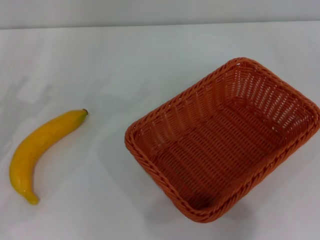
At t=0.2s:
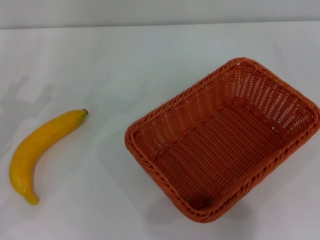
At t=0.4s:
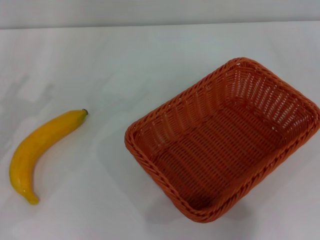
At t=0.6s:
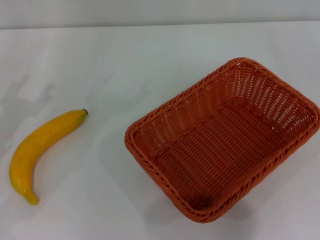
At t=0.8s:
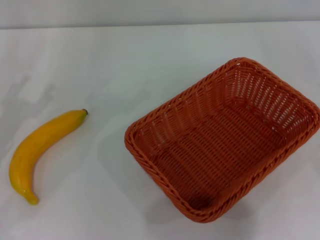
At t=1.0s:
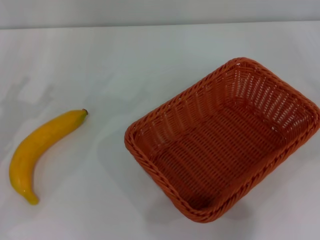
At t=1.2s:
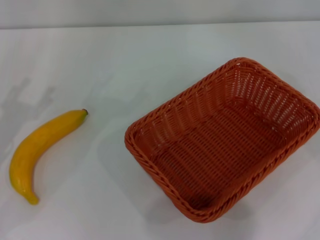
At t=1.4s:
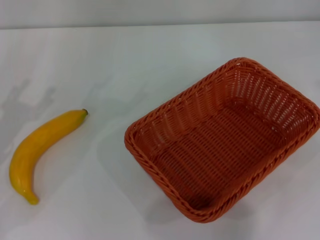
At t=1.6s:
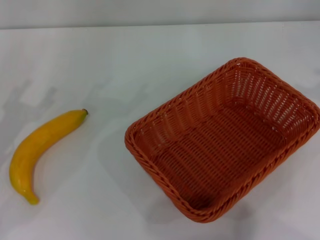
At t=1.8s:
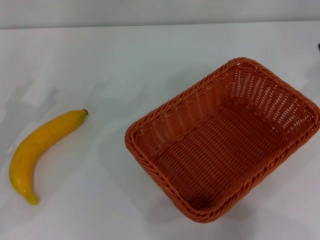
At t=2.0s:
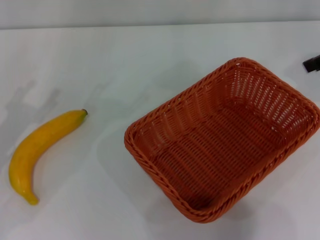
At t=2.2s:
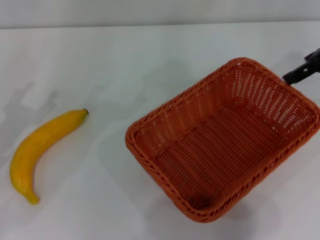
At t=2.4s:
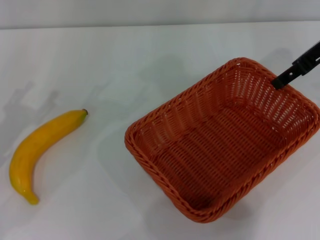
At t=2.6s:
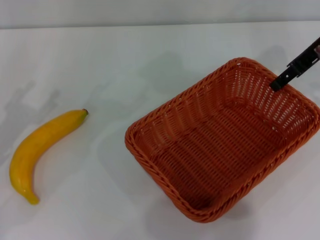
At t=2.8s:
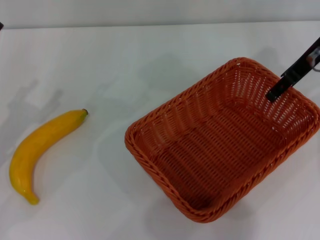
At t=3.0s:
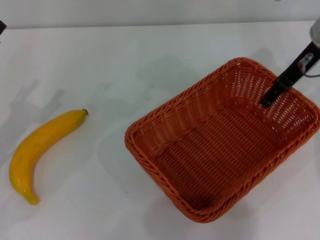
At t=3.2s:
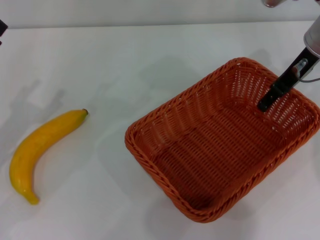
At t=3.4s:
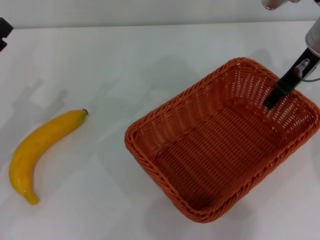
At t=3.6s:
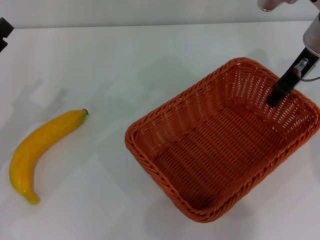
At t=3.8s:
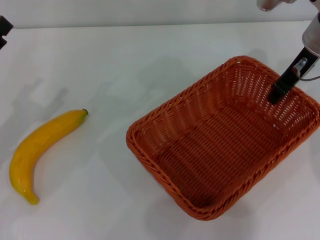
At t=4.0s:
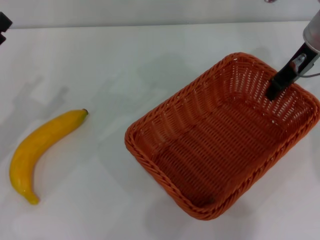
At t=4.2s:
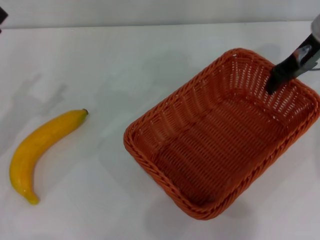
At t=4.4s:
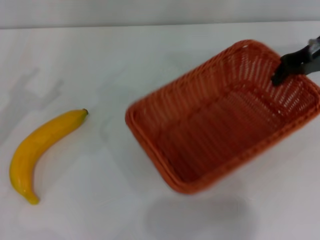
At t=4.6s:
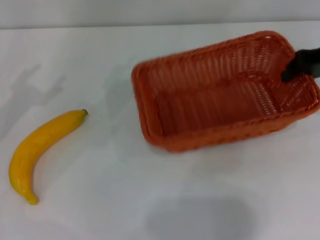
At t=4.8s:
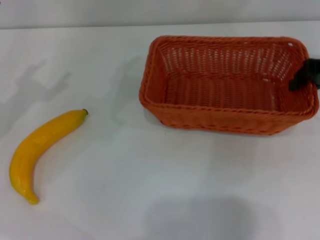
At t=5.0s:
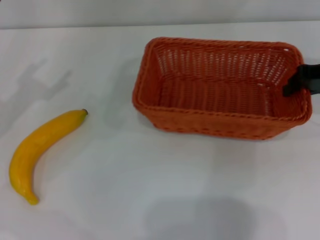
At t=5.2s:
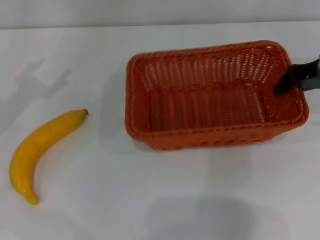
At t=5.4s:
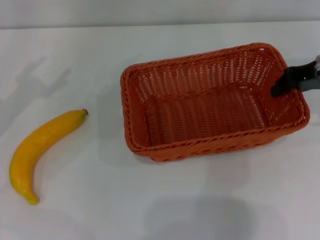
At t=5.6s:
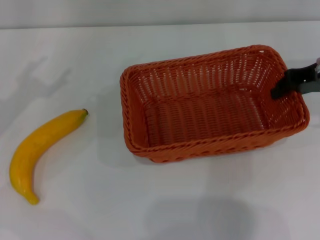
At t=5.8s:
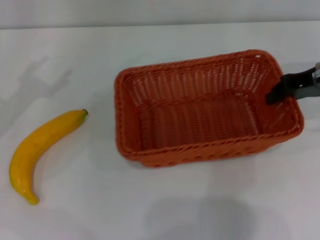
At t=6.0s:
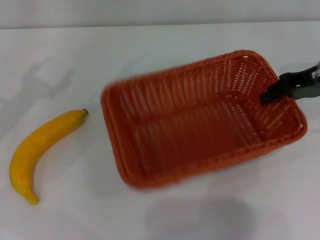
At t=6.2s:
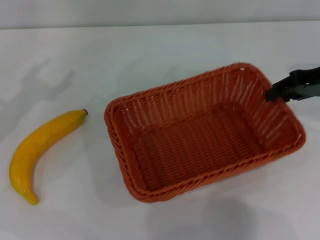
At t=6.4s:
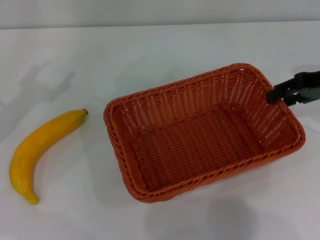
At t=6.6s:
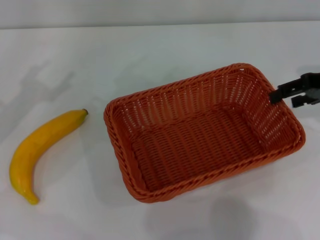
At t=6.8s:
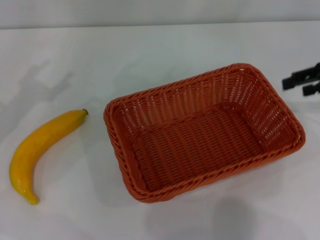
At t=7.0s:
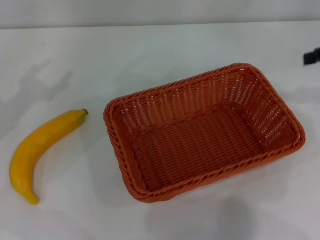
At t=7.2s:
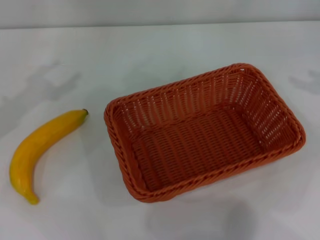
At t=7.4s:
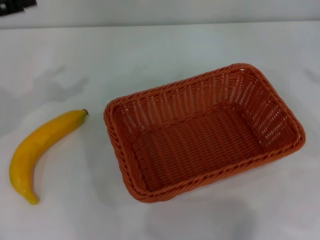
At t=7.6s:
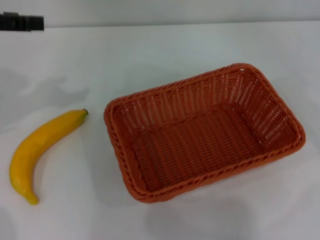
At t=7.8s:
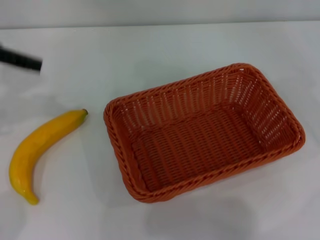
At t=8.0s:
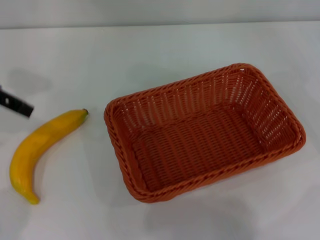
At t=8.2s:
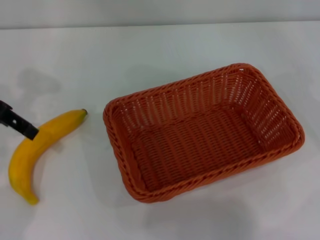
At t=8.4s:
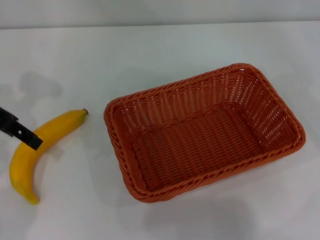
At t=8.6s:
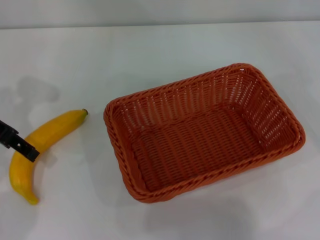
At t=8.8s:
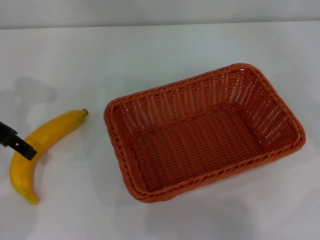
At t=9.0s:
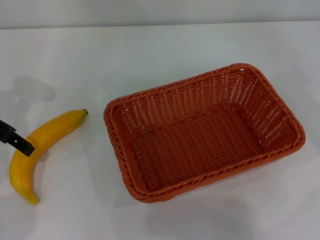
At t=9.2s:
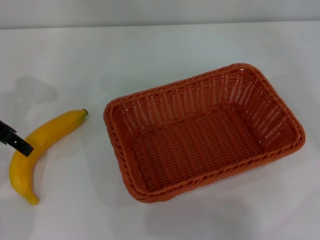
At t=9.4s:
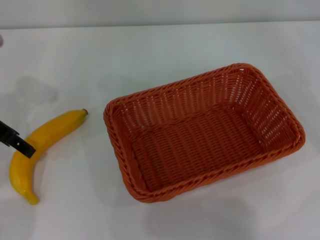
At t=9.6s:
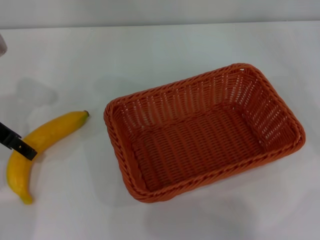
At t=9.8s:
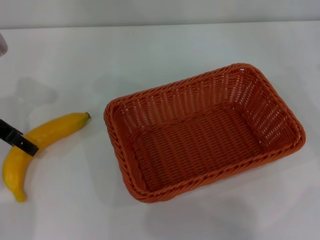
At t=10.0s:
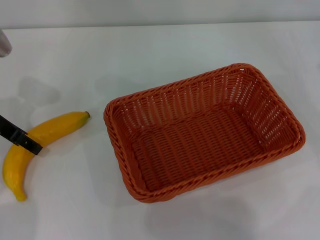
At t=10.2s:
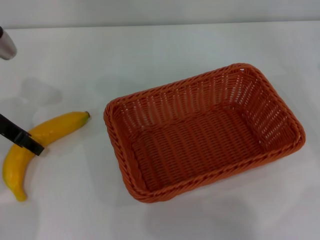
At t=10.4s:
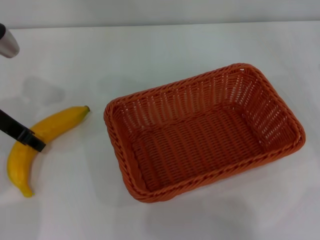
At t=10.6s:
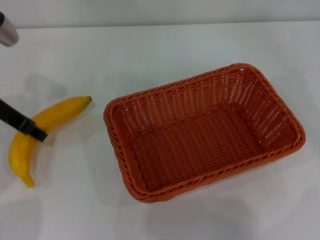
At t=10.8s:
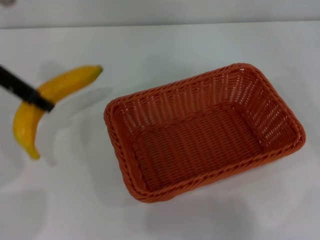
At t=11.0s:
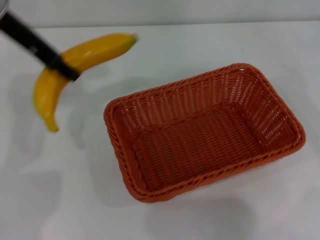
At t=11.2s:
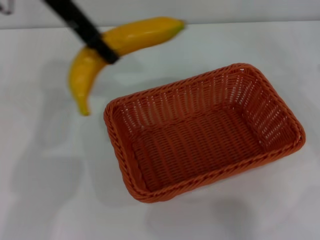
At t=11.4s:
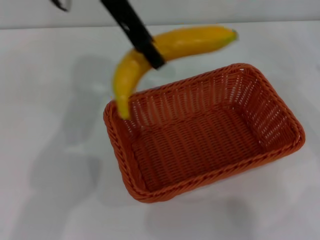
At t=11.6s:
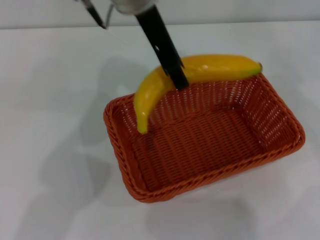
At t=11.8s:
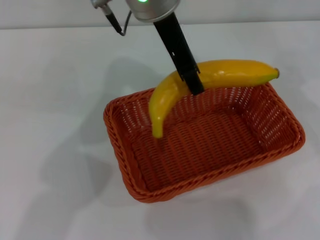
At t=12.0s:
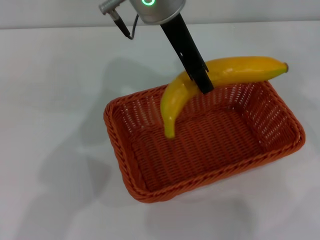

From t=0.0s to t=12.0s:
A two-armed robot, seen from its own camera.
Step, from t=0.0s to t=4.4s: Pick up the light basket with the right gripper.
Step, from t=4.6s to t=6.8s: Place the light basket in the center of view with the right gripper.
Step, from t=7.0s to t=10.6s: Pick up the banana with the left gripper.
From t=1.6s to t=3.0s: The right gripper goes approximately 20 cm to the left, forward and downward.
From t=3.0s to t=4.4s: The right gripper closes up.
From t=4.4s to t=6.0s: The right gripper ends up some 5 cm from where it was.
From t=6.0s to t=7.6s: The left gripper moves upward, some 10 cm, while the right gripper is displaced to the right by roughly 15 cm, and opens up.
From t=7.6s to t=9.0s: The left gripper heads downward, covering about 10 cm.
From t=9.0s to t=10.4s: The left gripper closes its fingers.
From t=10.4s to t=12.0s: The left gripper shifts about 30 cm to the right and upward, and closes its fingers.

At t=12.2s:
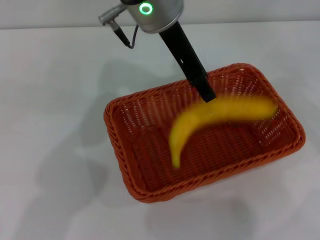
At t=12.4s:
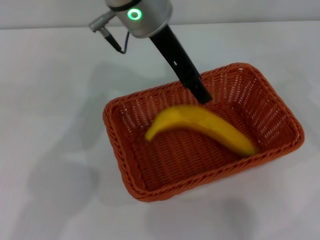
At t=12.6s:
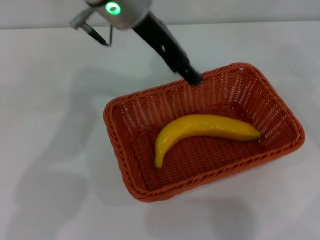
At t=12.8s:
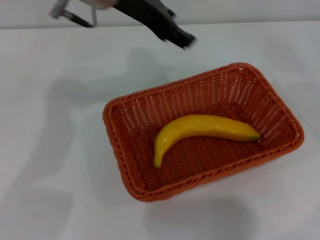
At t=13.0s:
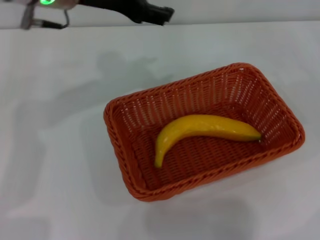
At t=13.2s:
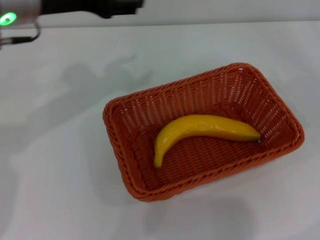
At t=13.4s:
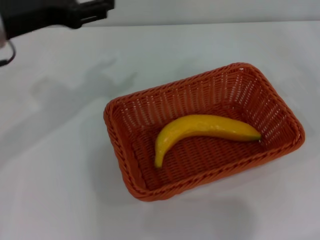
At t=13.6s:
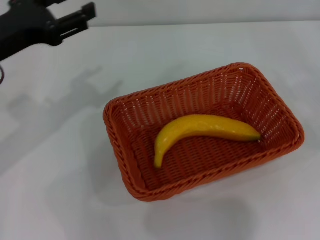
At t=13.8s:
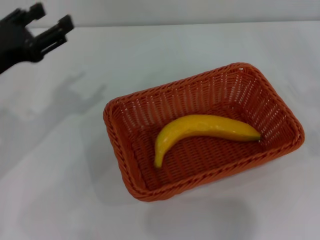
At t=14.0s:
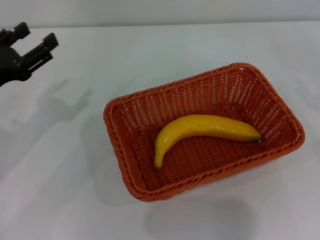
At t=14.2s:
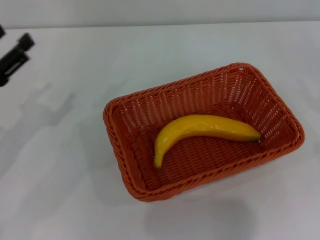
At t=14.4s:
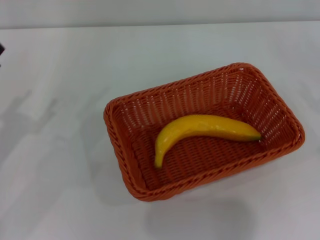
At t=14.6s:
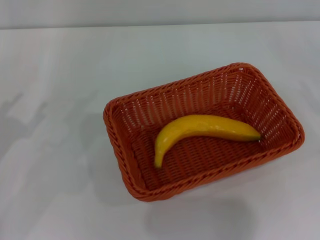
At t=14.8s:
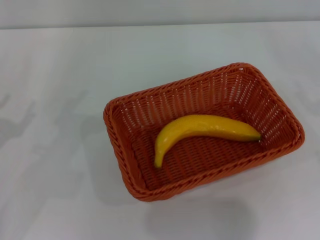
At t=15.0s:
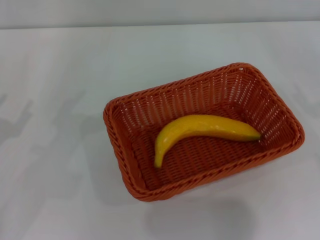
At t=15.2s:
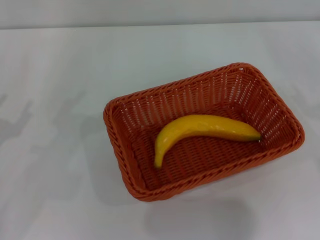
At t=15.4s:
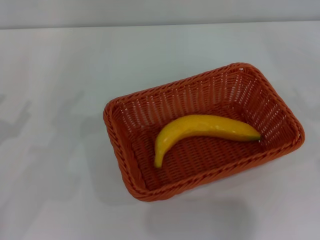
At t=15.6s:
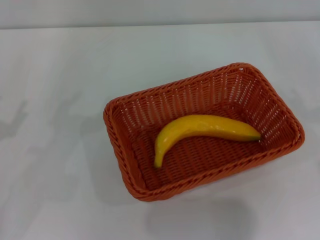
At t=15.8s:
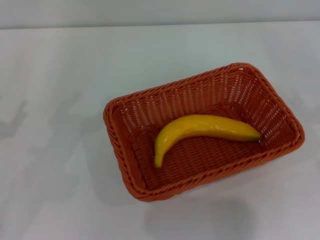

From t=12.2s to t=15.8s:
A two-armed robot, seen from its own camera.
From t=12.2s to t=14.0s: The right gripper moves downward and backward, some 10 cm, while the left gripper is displaced to the left, downward and backward by roughly 35 cm, and opens its fingers.
From t=14.0s to t=15.8s: The left gripper heads to the left and backward, covering roughly 10 cm.
